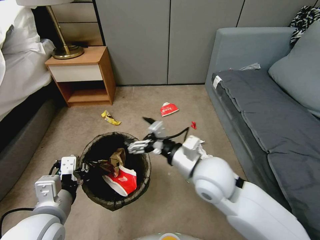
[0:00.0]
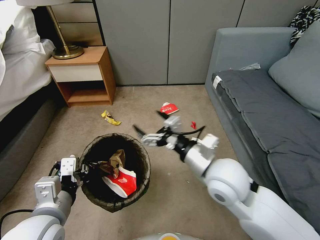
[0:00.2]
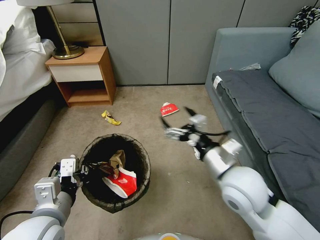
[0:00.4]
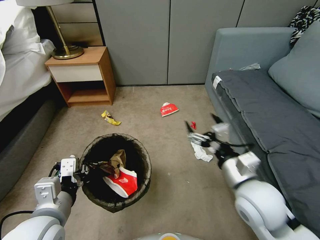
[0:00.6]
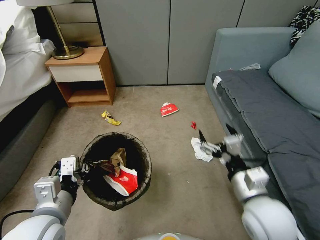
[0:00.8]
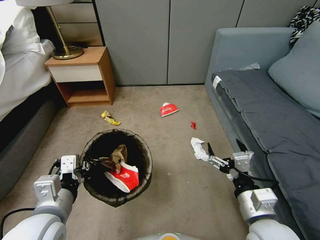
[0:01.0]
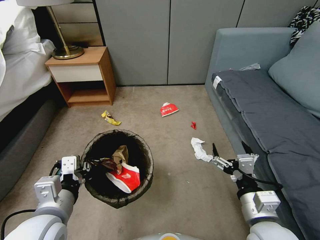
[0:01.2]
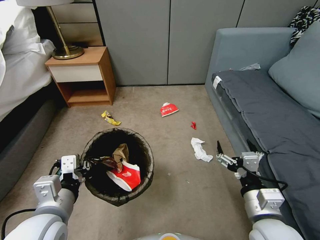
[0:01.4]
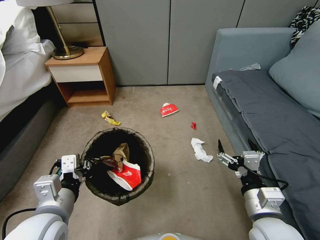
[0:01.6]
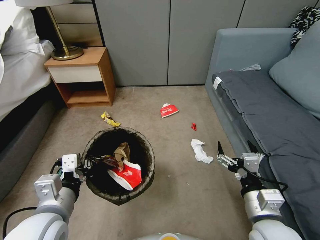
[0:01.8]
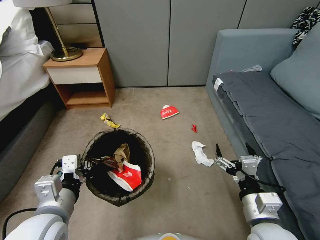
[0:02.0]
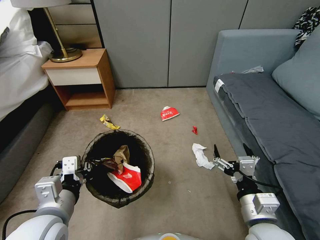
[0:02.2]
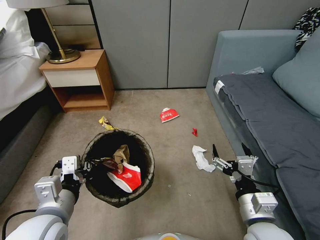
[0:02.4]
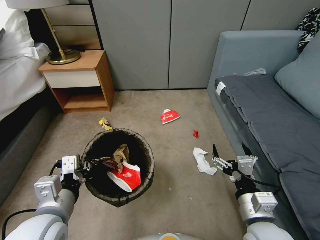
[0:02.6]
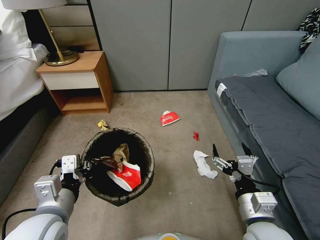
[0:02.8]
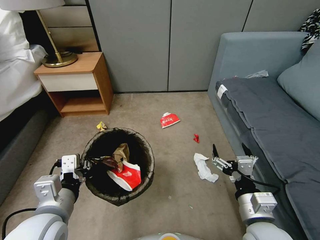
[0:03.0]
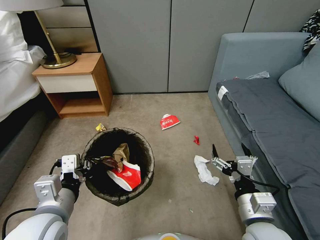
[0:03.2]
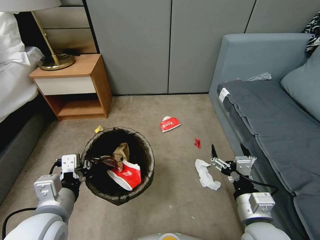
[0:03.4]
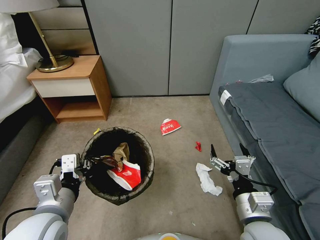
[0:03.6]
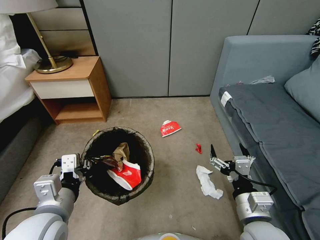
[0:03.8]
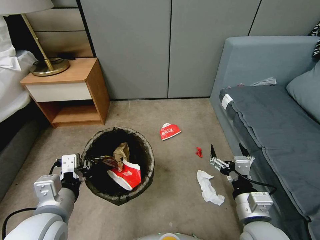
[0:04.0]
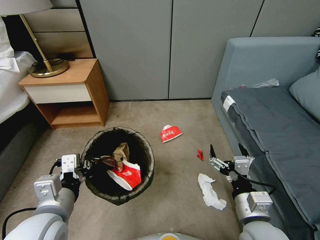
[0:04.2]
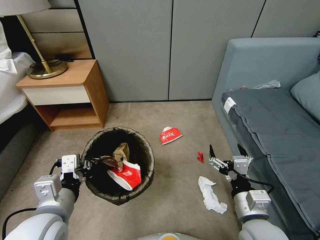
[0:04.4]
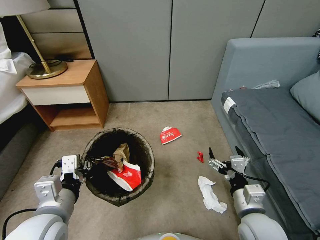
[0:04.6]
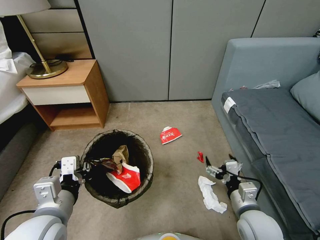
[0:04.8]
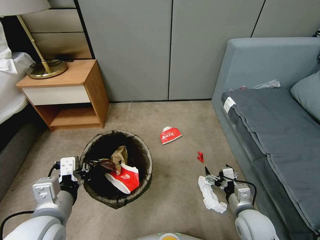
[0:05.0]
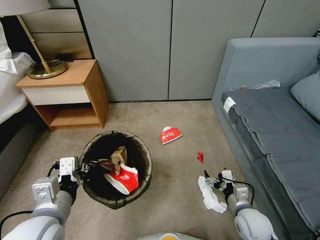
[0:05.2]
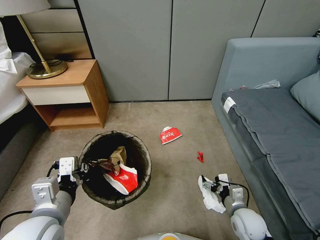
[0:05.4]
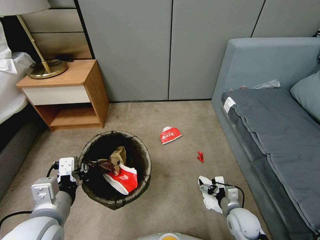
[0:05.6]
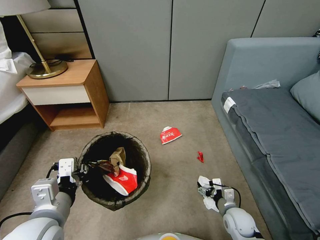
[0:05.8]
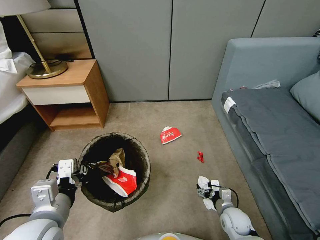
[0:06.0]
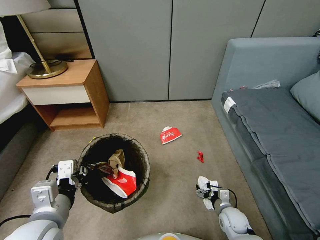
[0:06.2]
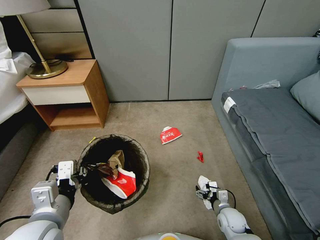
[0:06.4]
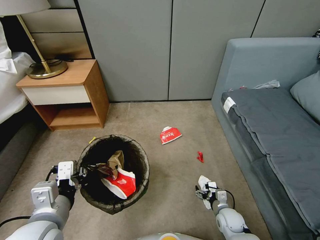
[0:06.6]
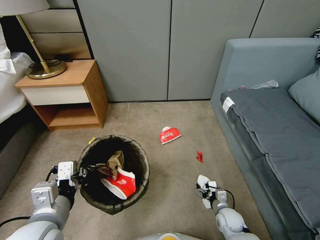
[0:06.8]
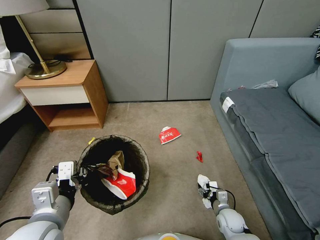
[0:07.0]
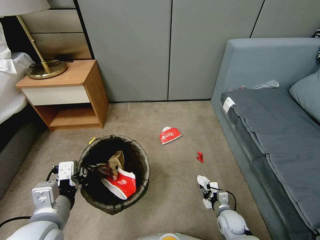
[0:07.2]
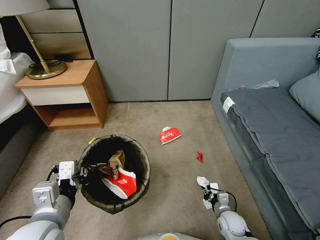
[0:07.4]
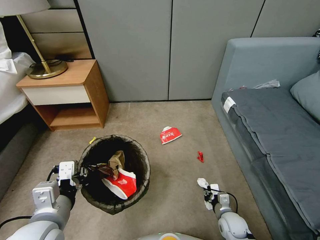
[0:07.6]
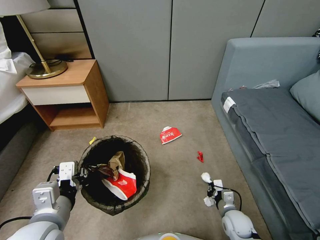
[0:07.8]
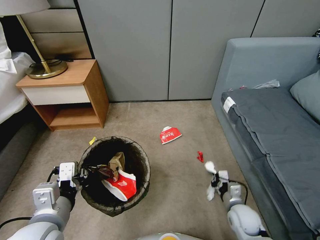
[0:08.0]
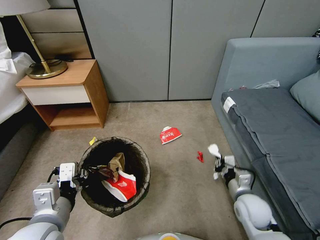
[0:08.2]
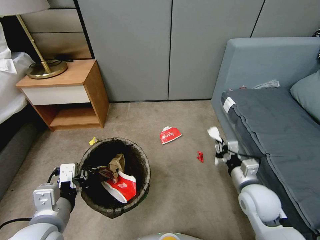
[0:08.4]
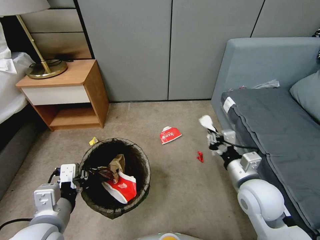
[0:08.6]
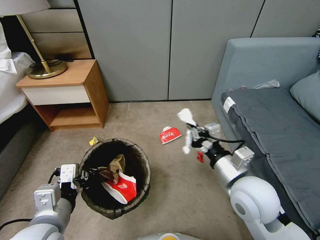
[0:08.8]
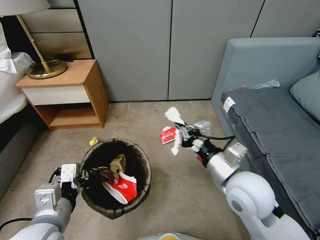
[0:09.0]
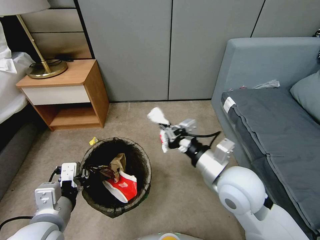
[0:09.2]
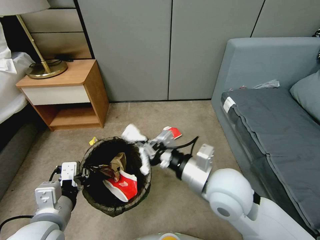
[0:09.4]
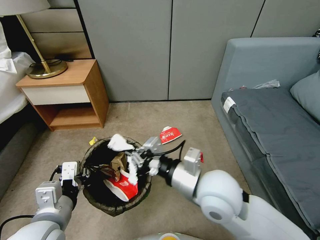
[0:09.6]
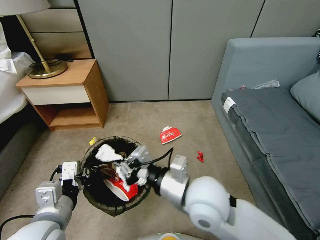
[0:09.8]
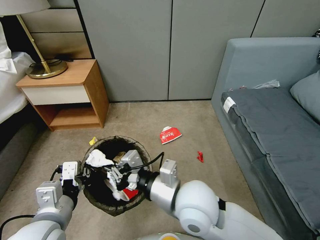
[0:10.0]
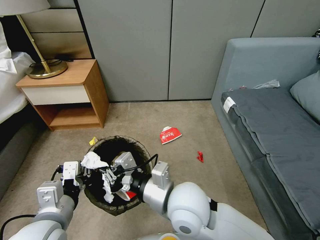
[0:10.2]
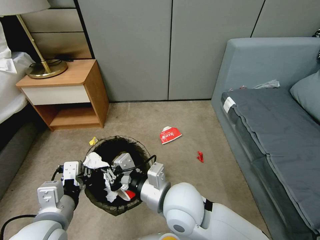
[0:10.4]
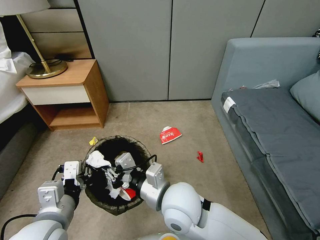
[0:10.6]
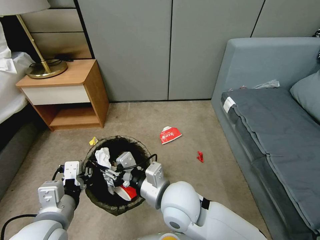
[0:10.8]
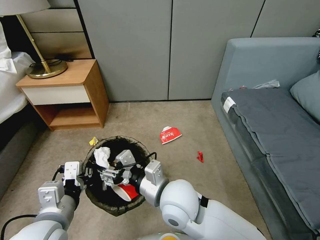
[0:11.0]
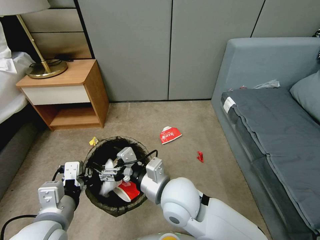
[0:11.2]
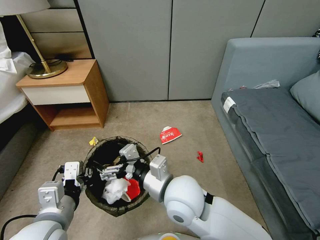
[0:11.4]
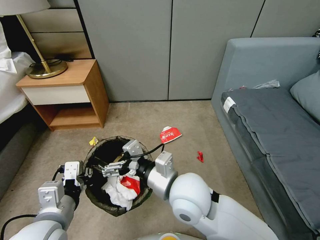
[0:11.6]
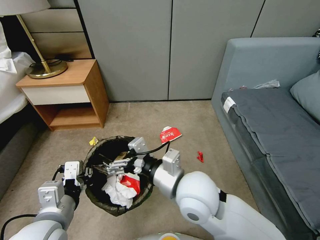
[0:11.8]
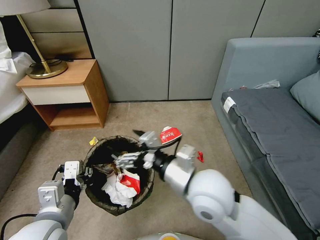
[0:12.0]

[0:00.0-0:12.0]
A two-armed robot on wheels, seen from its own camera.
Task of the whole recording: Pick up the trash bin, then pick up the garbage from the floor and place it into the trash bin.
0:00.0 to 0:01.6: The right gripper moves to the right, backward and downward, some 20 cm.
0:04.4 to 0:06.0: The right gripper is displaced downward by approximately 25 cm.
0:06.0 to 0:07.6: The right gripper closes its fingers.
0:07.6 to 0:09.0: The right gripper heads upward, covering roughly 35 cm.
0:09.0 to 0:10.4: The right gripper is displaced to the left by about 15 cm.
0:10.4 to 0:12.0: The right gripper is displaced to the right by approximately 5 cm, and opens.

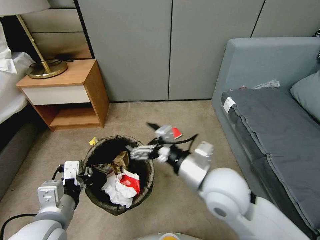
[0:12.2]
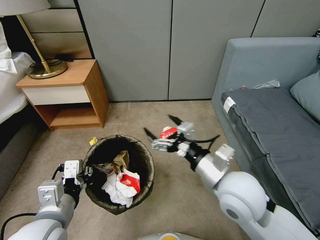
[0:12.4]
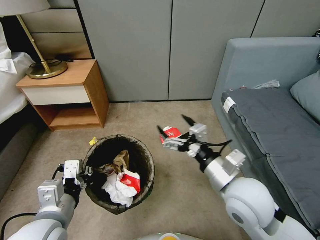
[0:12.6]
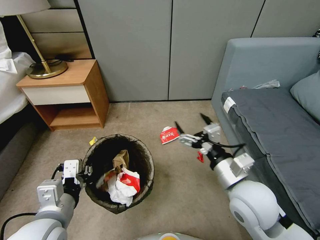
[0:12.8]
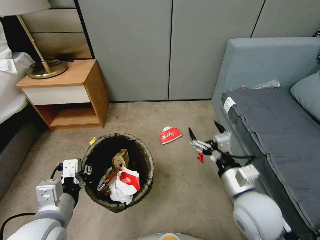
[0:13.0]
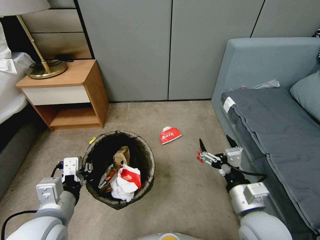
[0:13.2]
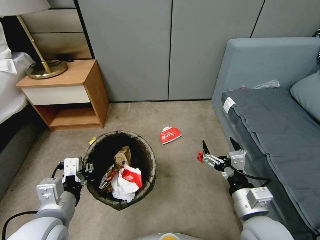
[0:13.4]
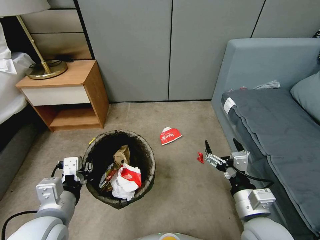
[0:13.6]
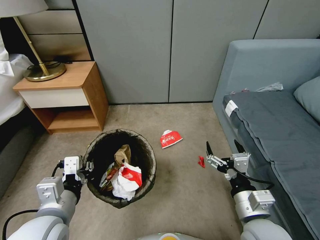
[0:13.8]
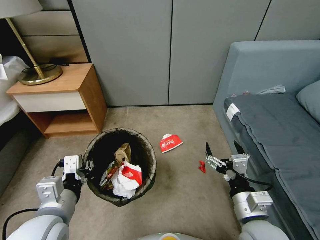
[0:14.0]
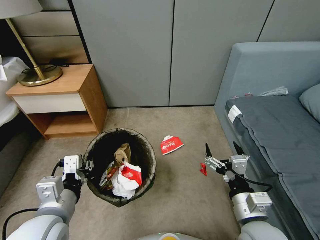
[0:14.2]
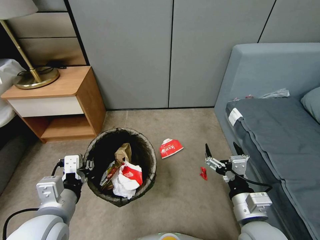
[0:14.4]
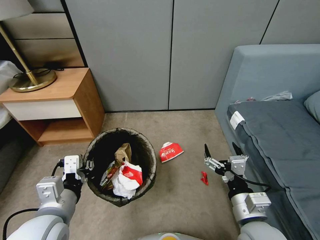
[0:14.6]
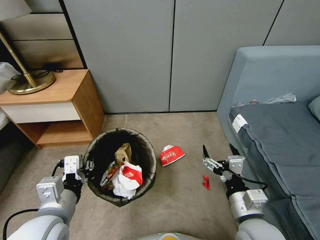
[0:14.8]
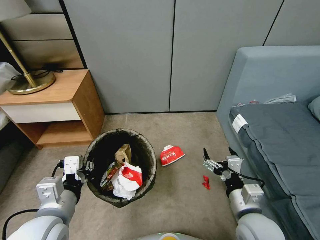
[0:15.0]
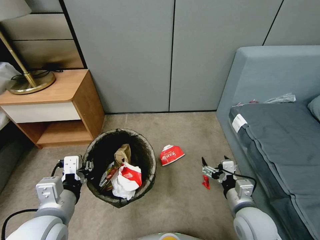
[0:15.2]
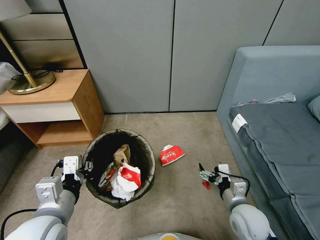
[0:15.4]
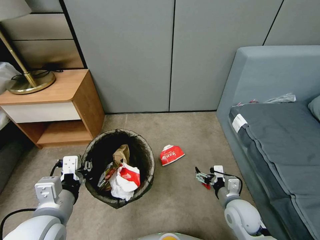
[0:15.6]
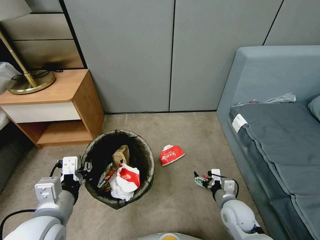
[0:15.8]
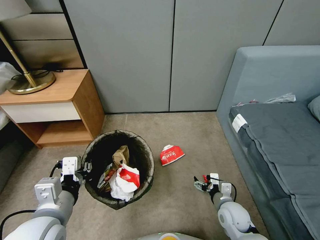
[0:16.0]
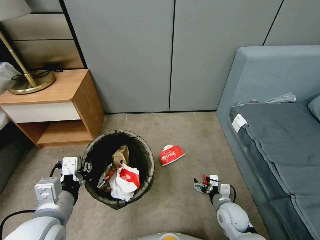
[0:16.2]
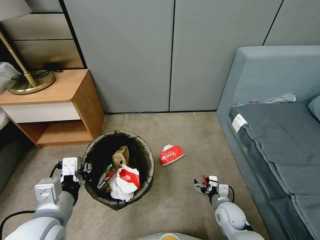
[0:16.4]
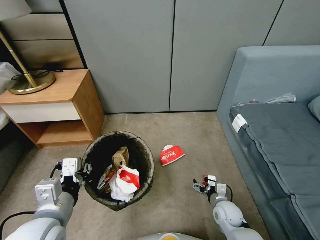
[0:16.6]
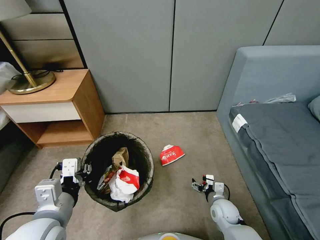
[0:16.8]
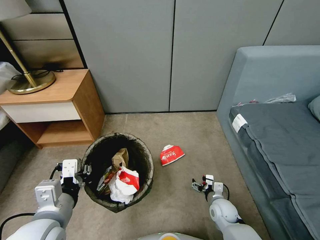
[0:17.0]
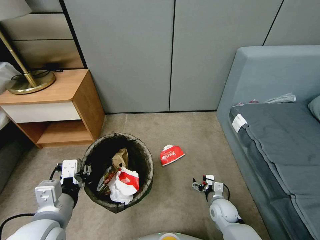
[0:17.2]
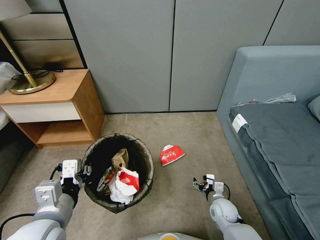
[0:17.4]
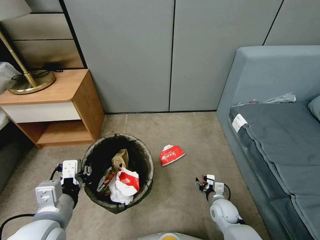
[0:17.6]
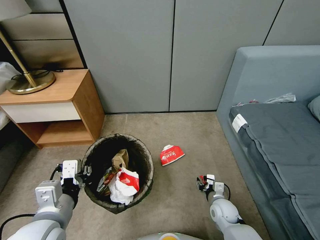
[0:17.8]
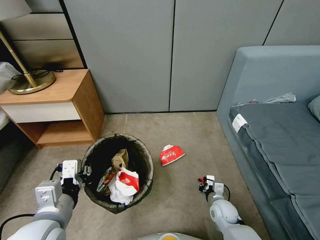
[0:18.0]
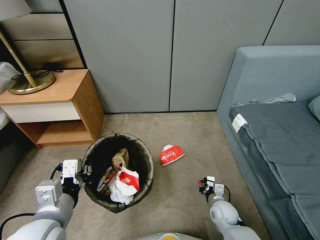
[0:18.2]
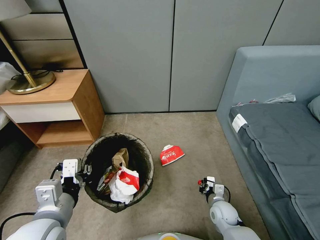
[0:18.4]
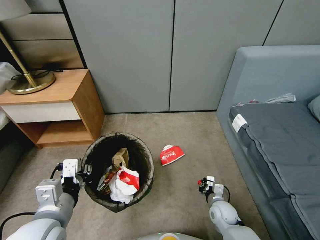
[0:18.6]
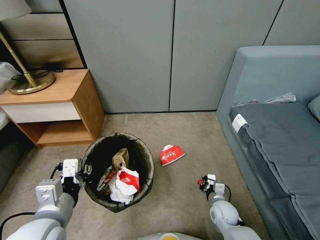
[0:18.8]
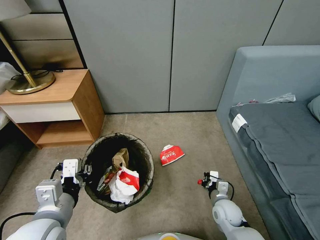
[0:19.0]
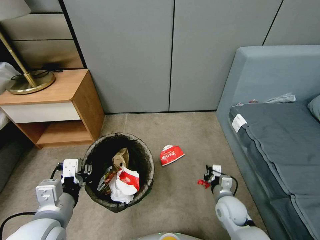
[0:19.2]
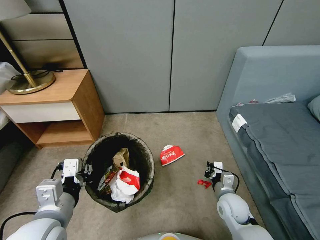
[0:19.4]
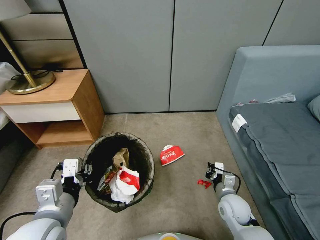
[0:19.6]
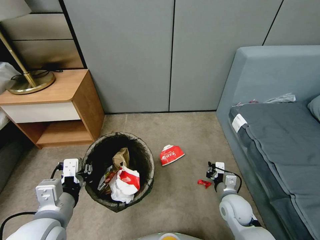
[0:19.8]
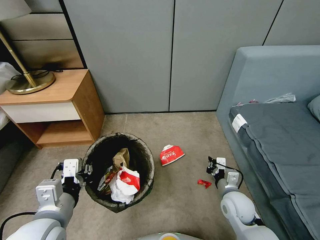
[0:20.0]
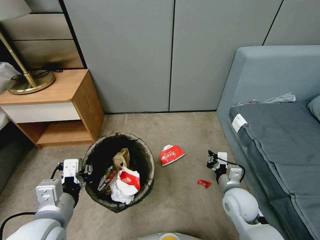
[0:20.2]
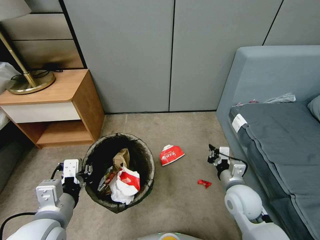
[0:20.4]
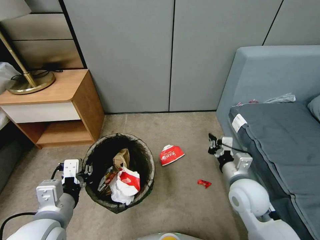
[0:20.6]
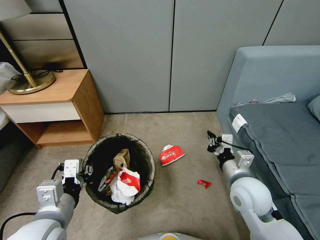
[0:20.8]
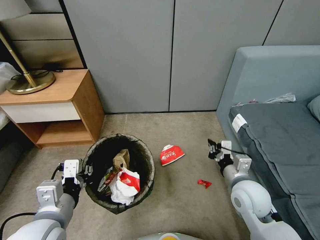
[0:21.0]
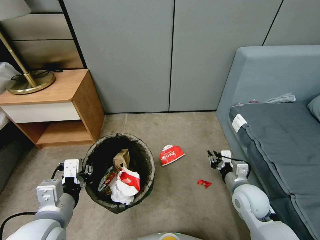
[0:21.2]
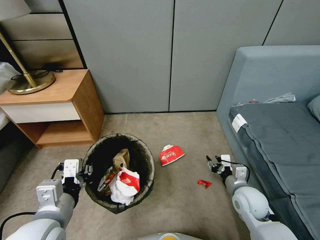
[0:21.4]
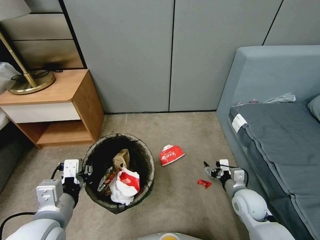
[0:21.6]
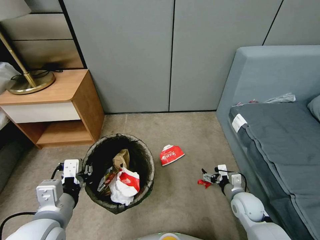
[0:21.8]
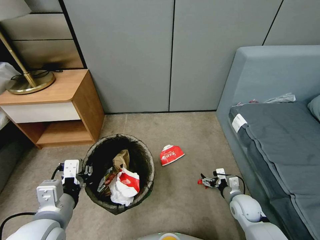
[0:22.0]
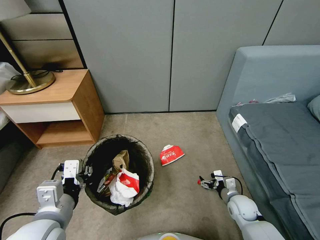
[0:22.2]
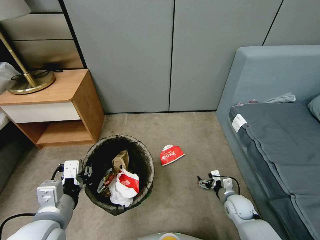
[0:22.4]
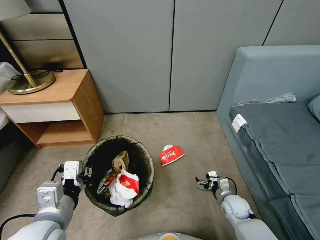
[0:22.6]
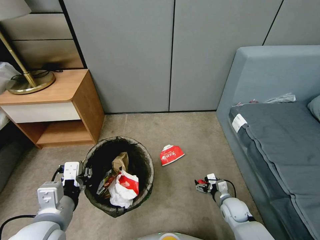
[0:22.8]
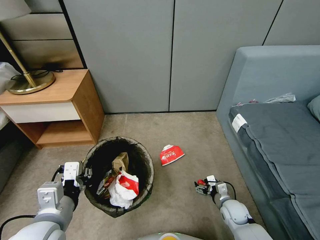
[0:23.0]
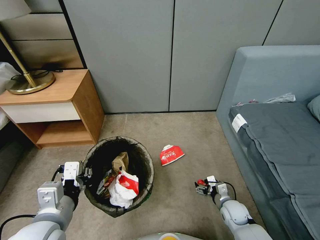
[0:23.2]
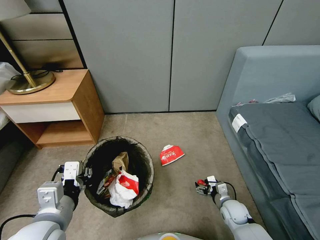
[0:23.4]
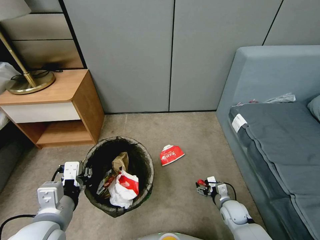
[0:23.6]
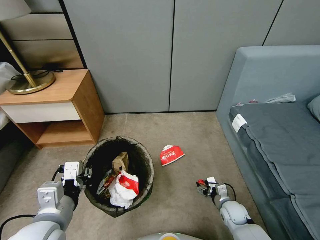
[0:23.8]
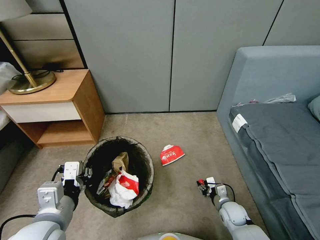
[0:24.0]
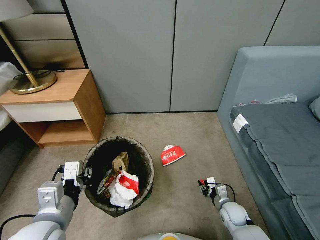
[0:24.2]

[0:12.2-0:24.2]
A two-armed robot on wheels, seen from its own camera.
Task of the whole recording: Pick up the trash bin, then pick up the garbage from the floor and place it into the trash bin.
0:12.2 to 0:13.8: The right gripper is displaced downward, to the right and backward by about 15 cm.
0:13.8 to 0:15.2: The right gripper travels downward by some 5 cm.
0:15.2 to 0:16.6: The right gripper moves downward, about 15 cm.
0:16.6 to 0:18.2: The right gripper closes.
0:18.2 to 0:19.8: The right gripper moves upward, some 10 cm.
0:19.8 to 0:21.2: The right gripper moves upward, approximately 10 cm.
0:21.2 to 0:22.6: The right gripper goes roughly 15 cm downward, and opens its fingers.
0:22.6 to 0:24.2: The right gripper closes up.
